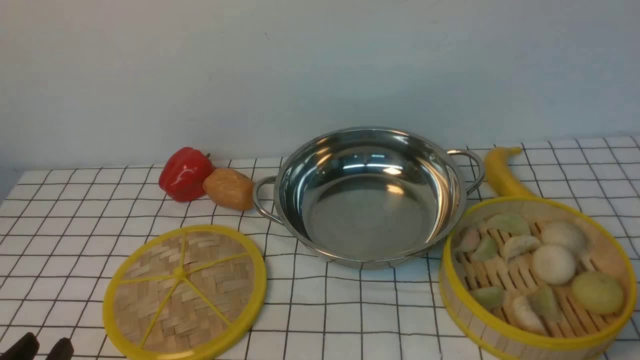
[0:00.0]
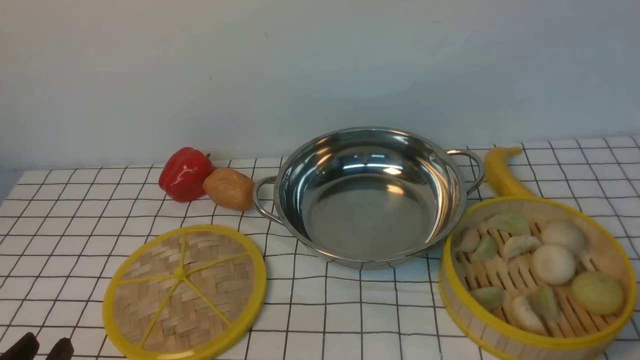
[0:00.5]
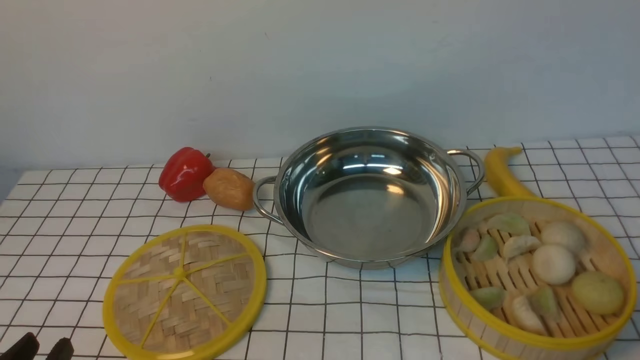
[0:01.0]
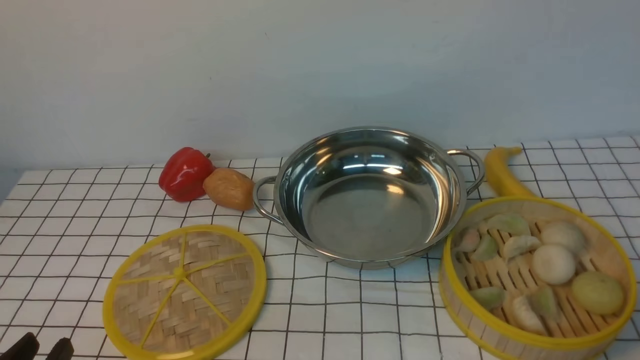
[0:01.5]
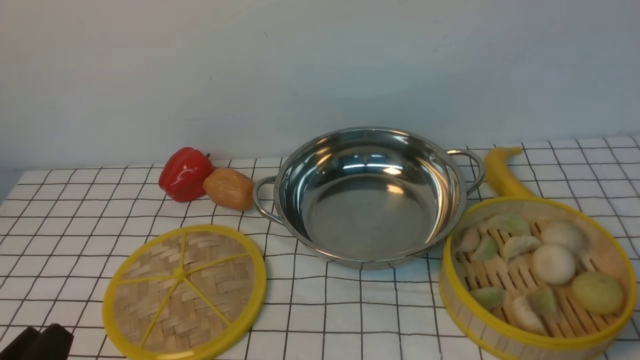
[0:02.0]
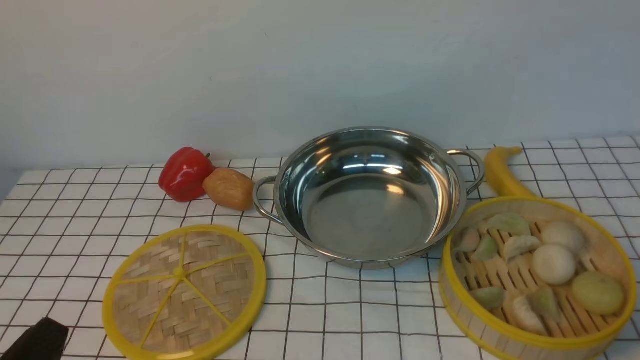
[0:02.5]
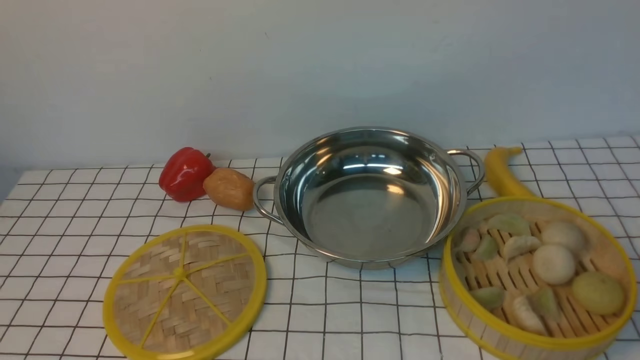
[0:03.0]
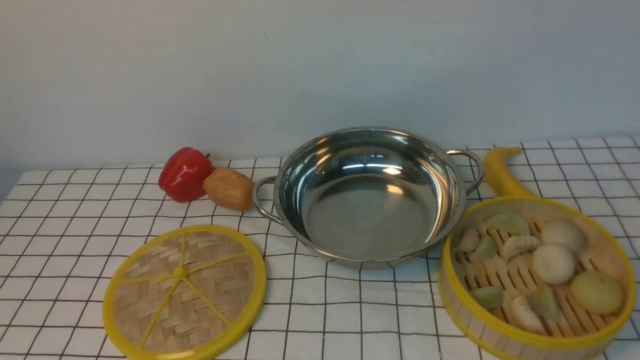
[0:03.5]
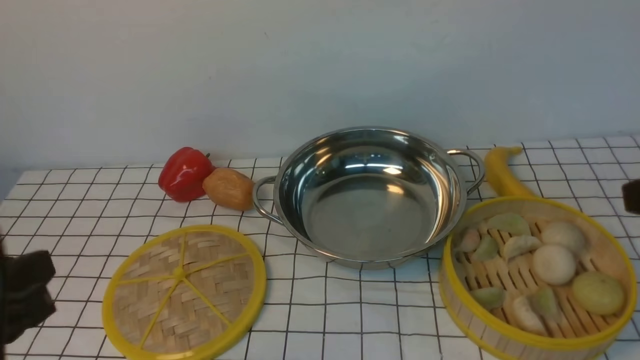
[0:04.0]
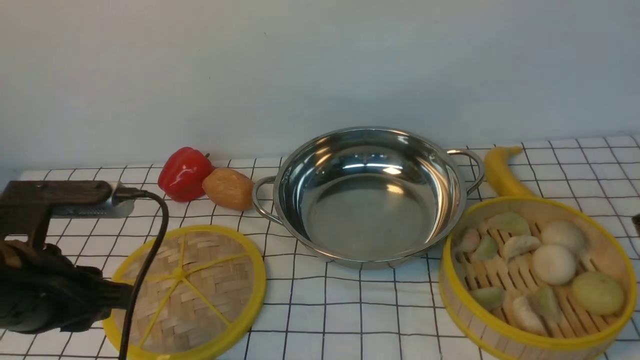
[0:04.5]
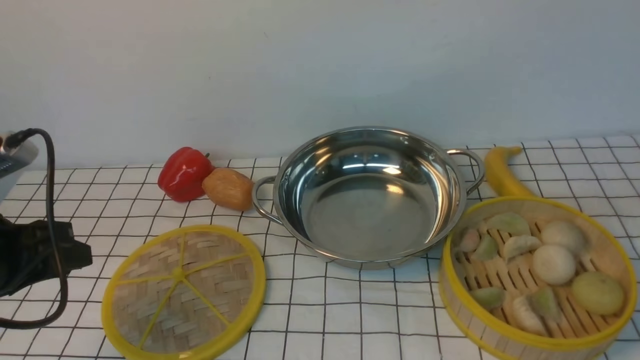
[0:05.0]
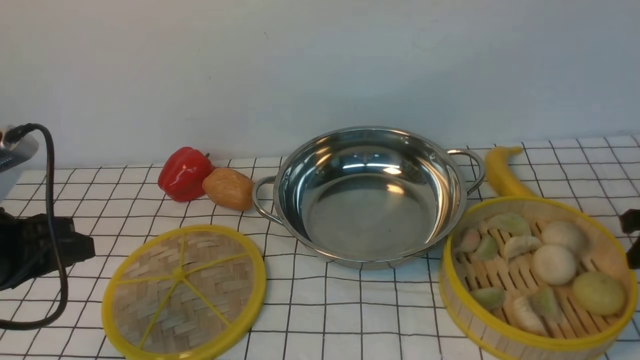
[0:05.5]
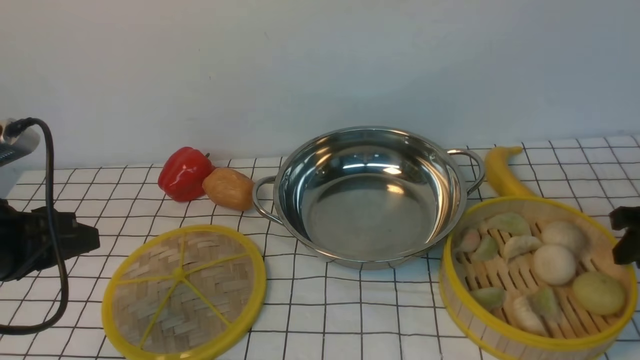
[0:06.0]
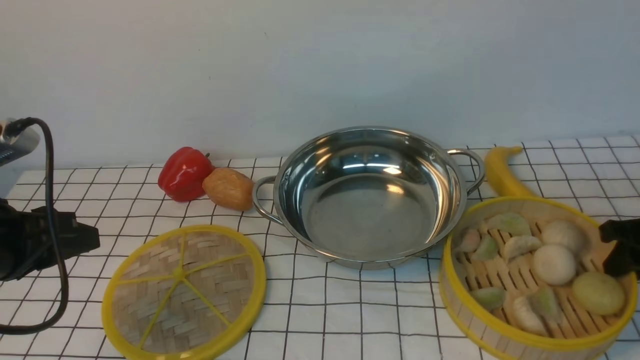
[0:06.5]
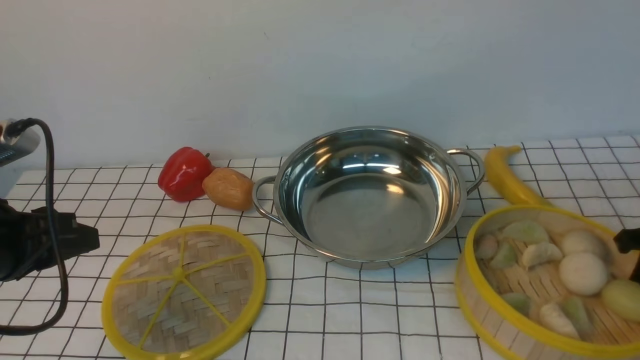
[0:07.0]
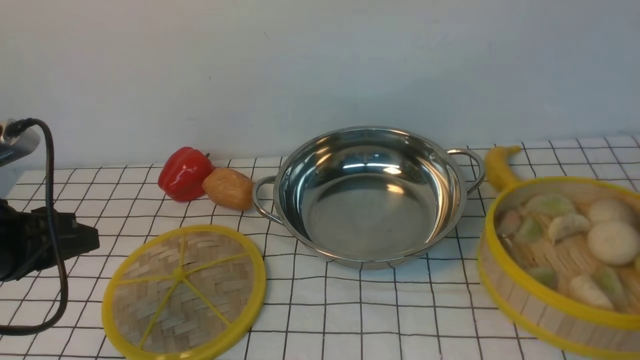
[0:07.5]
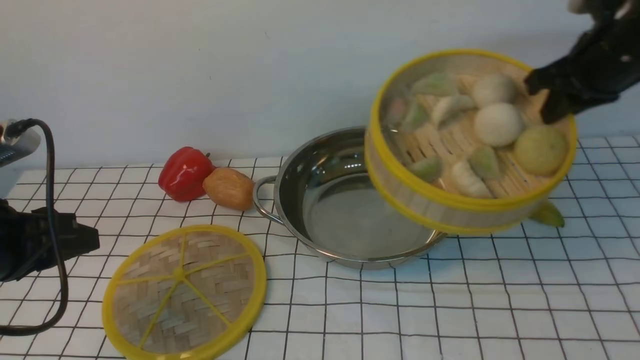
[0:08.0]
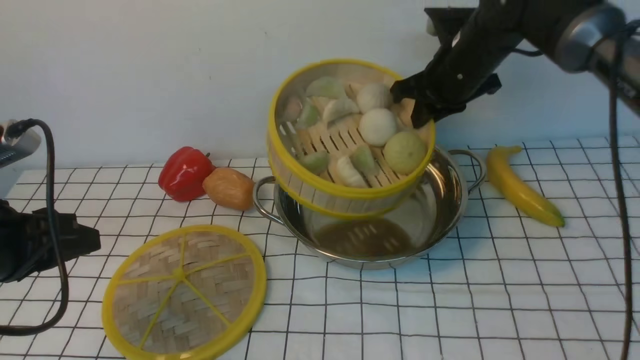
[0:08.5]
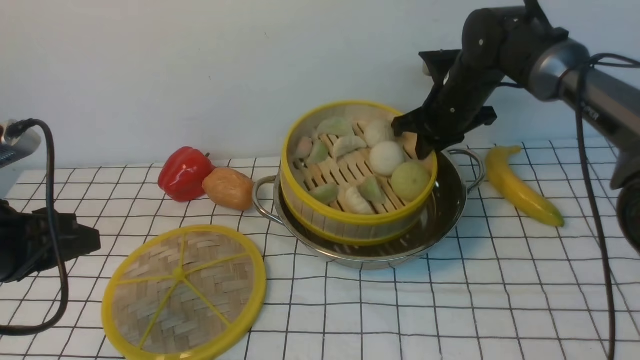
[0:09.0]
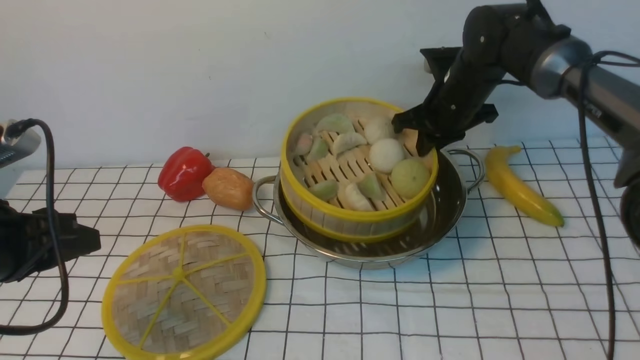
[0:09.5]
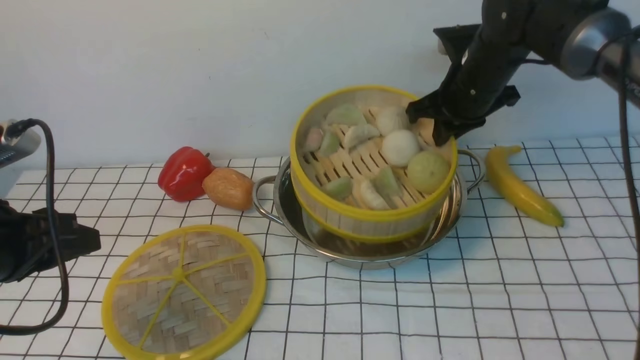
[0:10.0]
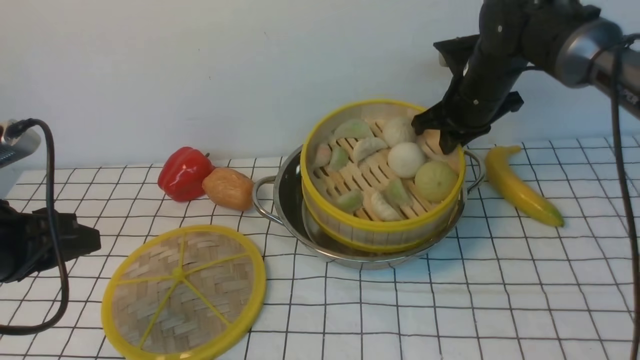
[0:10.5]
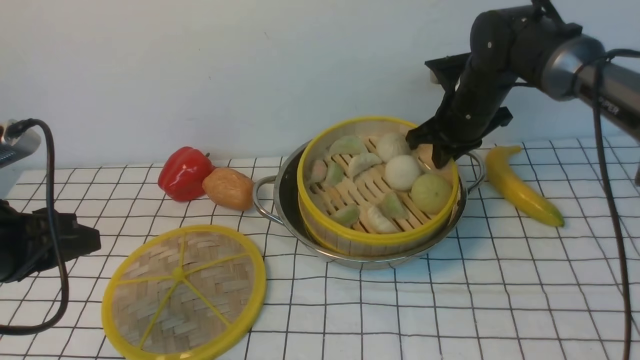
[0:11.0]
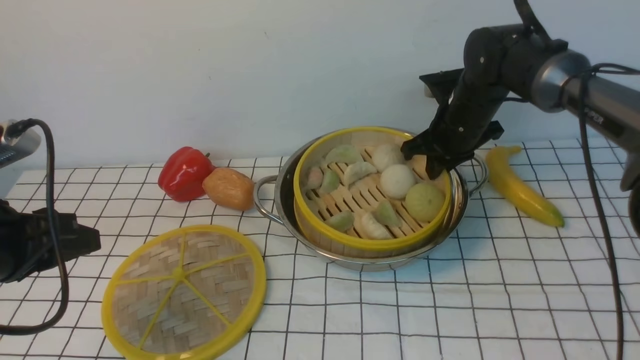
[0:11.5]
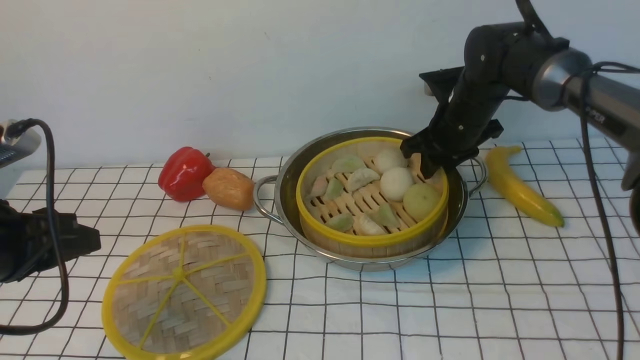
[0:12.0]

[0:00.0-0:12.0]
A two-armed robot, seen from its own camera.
Task of the whole recording: place the steamer in the pot on the white tablecloth, and put the lid on the steamer.
Step, 0:00.0 to 0:07.0: use the right arm to lift the steamer closest to it.
0:02.0 to 0:04.0: The left gripper heads upward and forward, covering approximately 15 cm.
0:04.0 to 0:06.0: The left gripper goes roughly 15 cm forward and to the left. The right gripper moves downward, forward and to the right, approximately 25 cm.
0:06.0 to 0:08.0: The right gripper travels upward, to the left and forward by some 20 cm, and closes its fingers.
0:08.0 to 0:10.0: The right gripper moves to the left, downward and forward, about 15 cm.
0:10.0 to 0:12.0: The right gripper moves downward, about 5 cm, and opens its fingers.

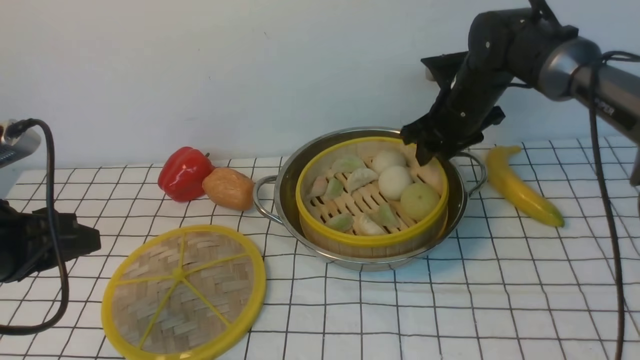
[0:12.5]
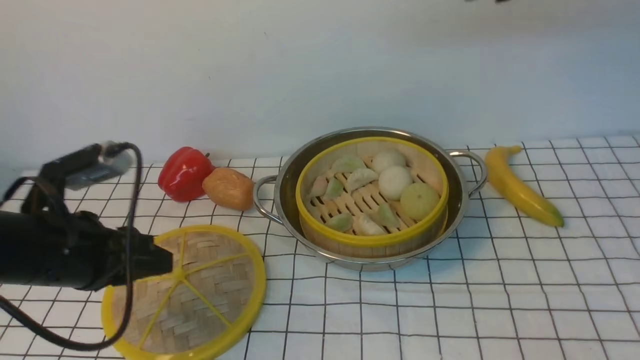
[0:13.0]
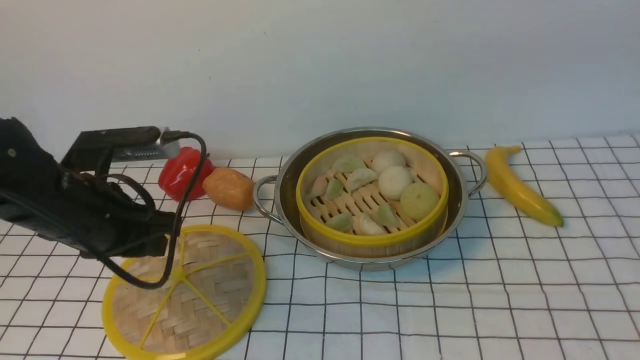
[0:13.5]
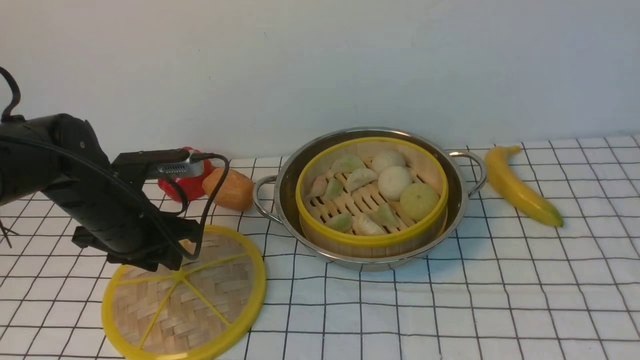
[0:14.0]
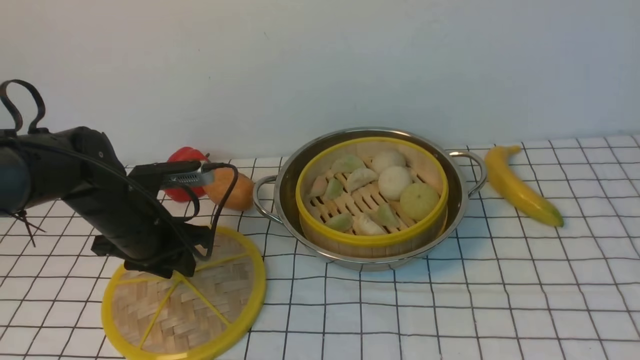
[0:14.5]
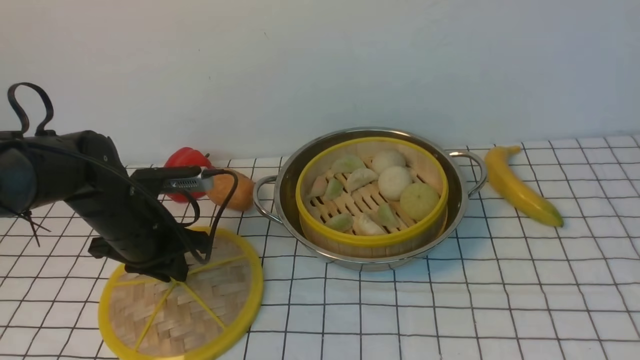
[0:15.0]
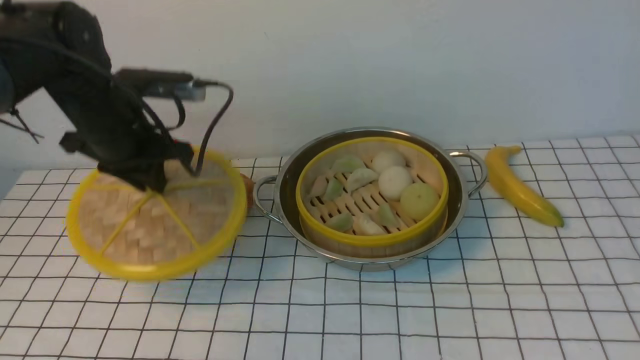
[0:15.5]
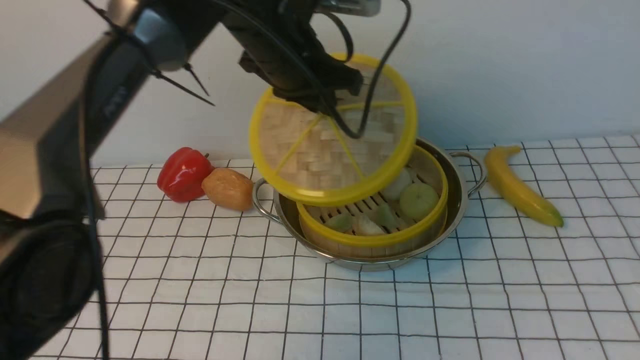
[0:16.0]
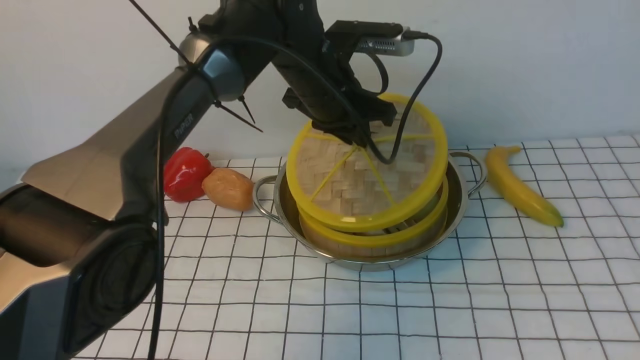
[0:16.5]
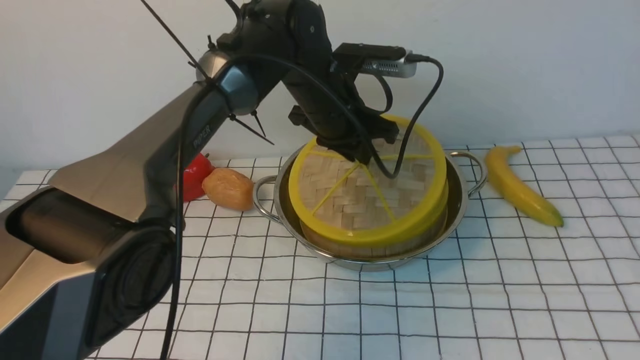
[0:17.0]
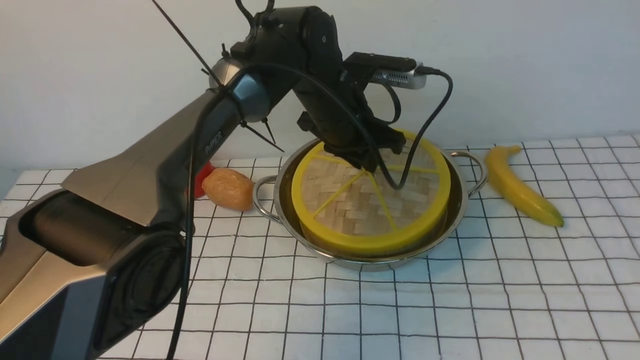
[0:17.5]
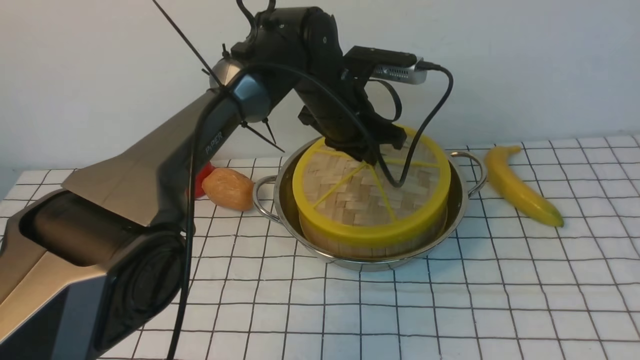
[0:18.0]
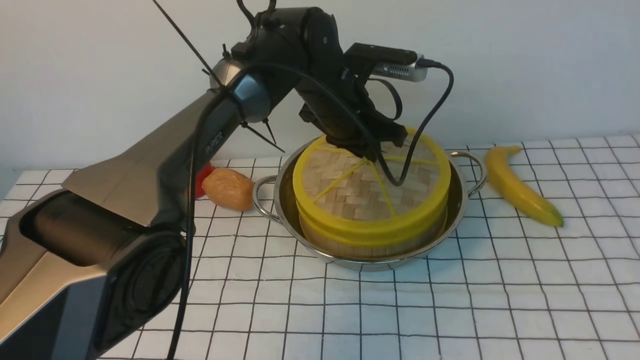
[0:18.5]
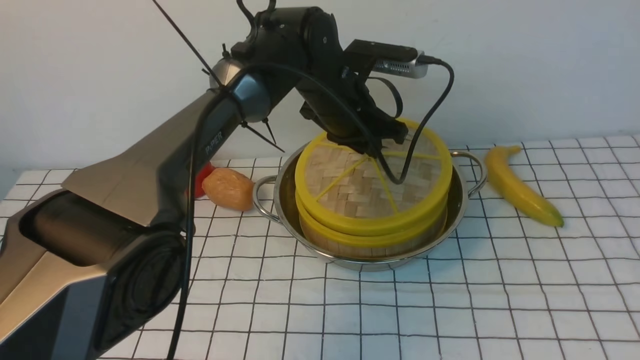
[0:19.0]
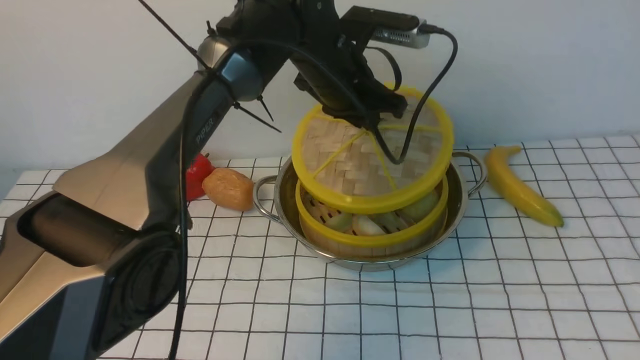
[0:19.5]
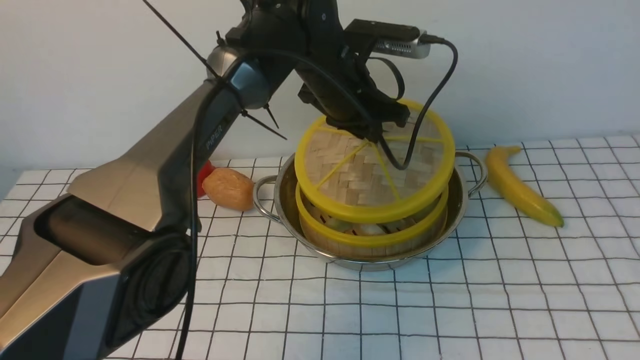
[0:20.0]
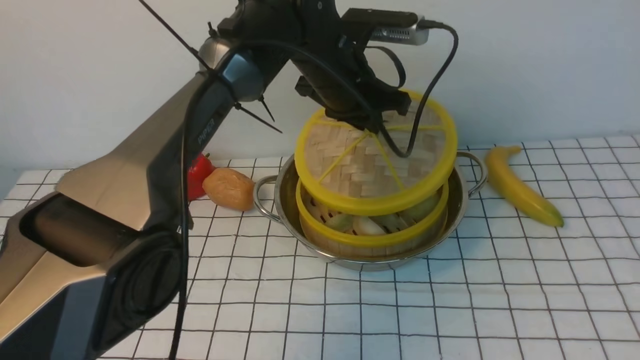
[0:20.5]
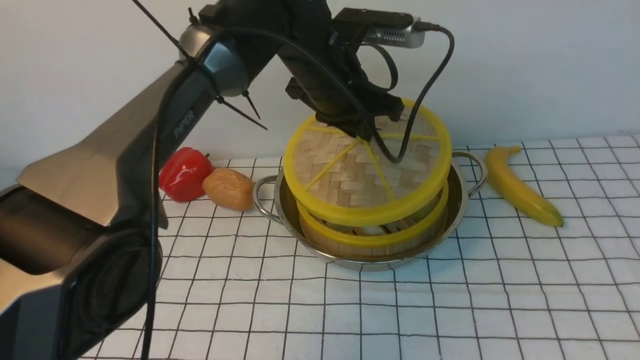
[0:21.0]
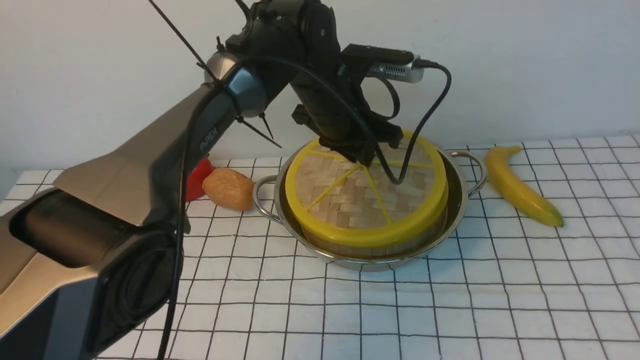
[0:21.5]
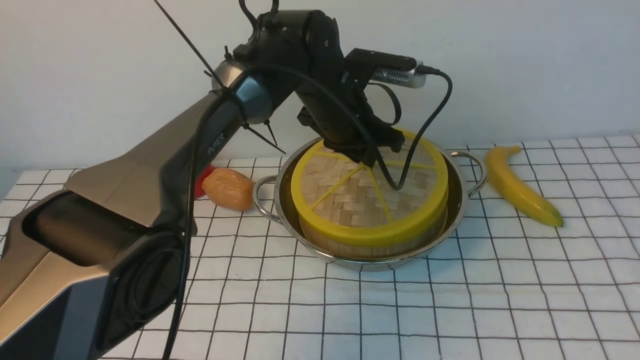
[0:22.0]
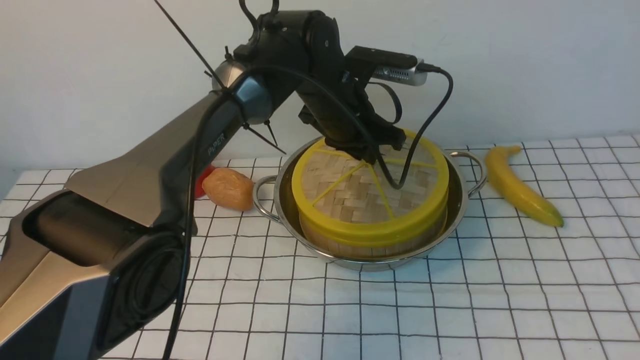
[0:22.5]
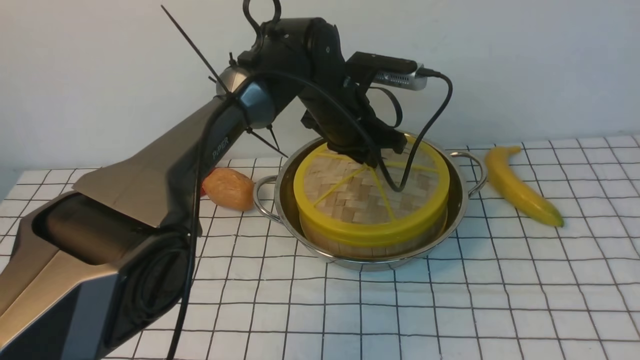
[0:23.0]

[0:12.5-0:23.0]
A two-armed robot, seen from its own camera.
Task of the whole recording: place the steamer in the pot on the white tablecloth, and put the lid on the steamer.
Step, 0:13.0 to 0:15.0: use the left arm to lift the lid of the steamer.
0:12.5 to 0:14.5: The right gripper goes approximately 50 cm backward and upward. Meanwhile the left gripper shifts approximately 15 cm forward, downward and to the right.
0:14.5 to 0:16.5: The left gripper shifts approximately 25 cm to the right, upward and forward, and closes its fingers.
0:21.0 to 0:23.0: The left gripper goes approximately 5 cm downward.
